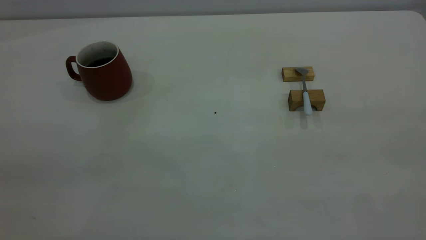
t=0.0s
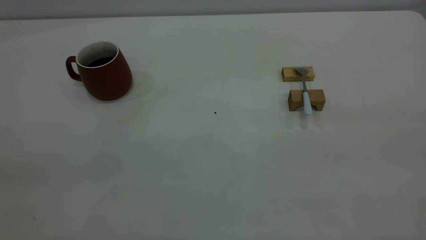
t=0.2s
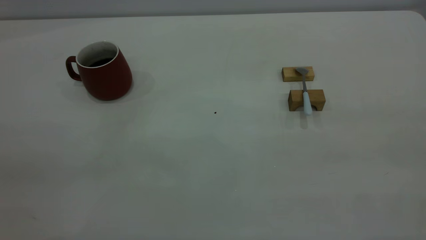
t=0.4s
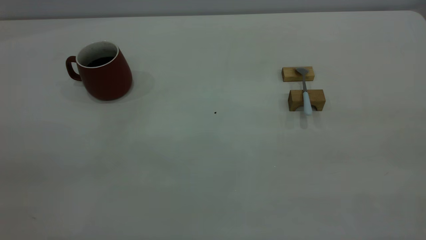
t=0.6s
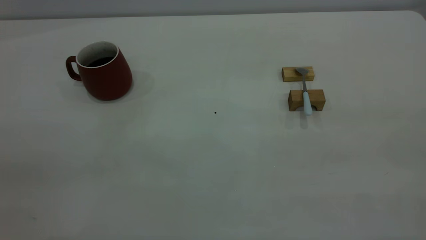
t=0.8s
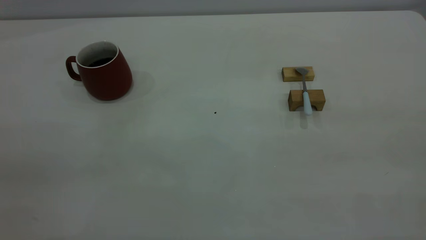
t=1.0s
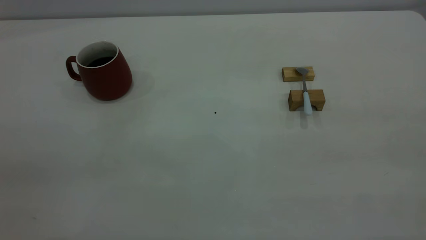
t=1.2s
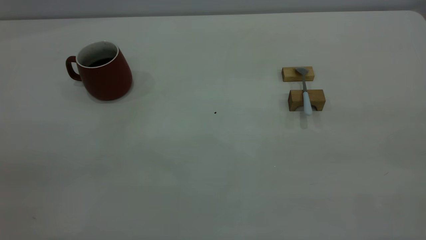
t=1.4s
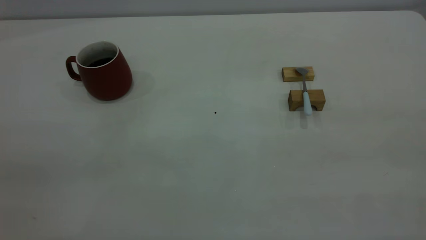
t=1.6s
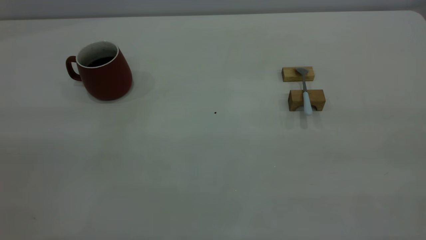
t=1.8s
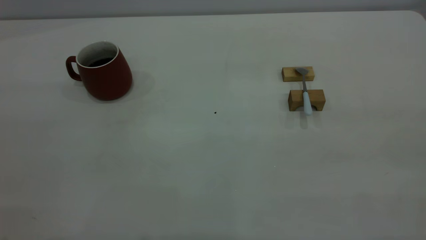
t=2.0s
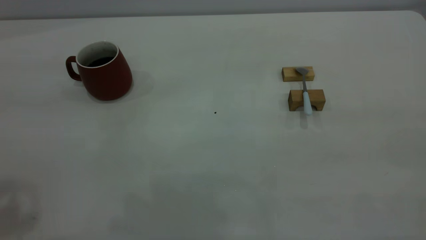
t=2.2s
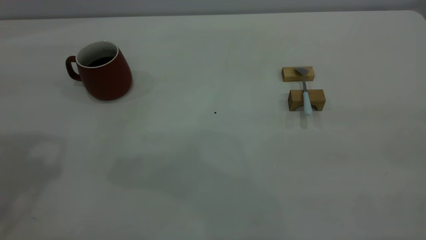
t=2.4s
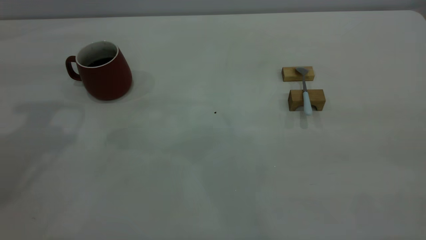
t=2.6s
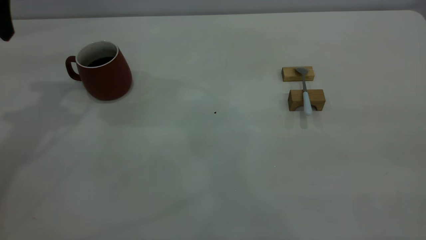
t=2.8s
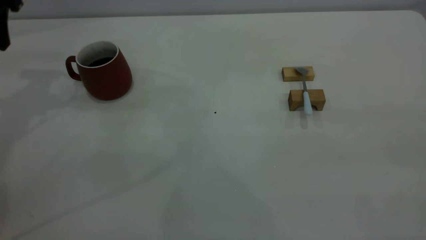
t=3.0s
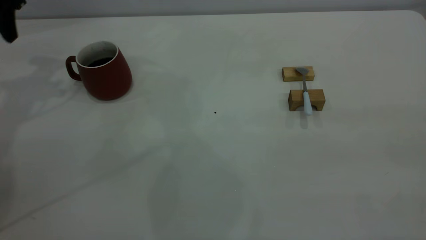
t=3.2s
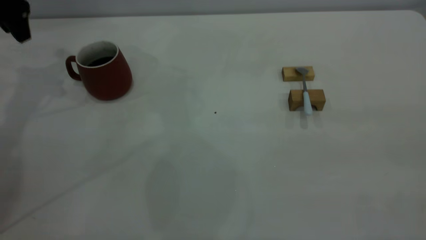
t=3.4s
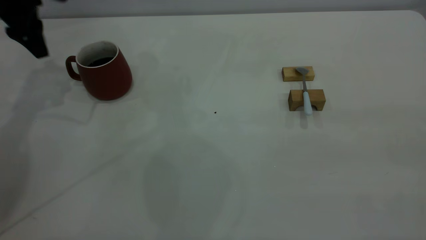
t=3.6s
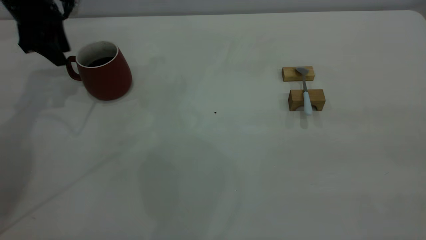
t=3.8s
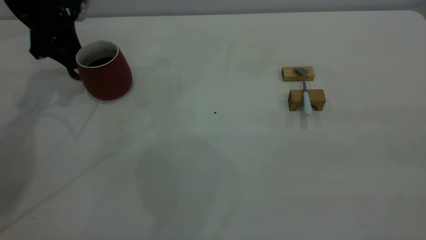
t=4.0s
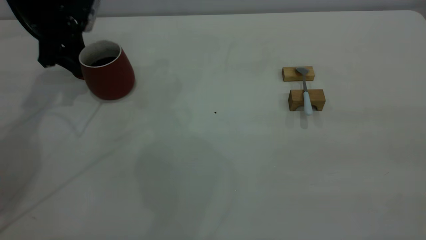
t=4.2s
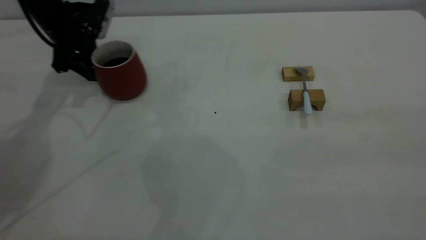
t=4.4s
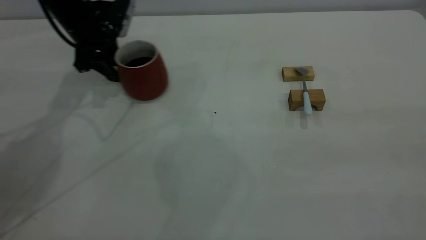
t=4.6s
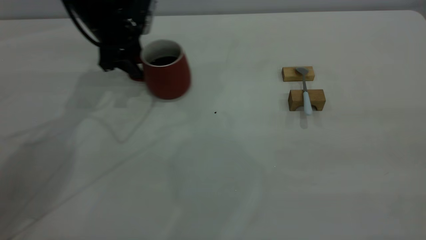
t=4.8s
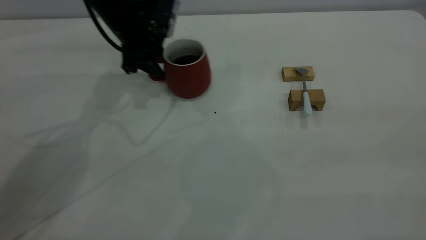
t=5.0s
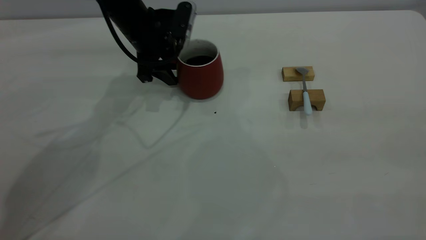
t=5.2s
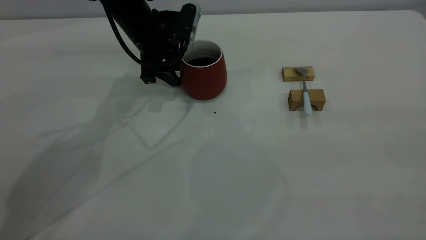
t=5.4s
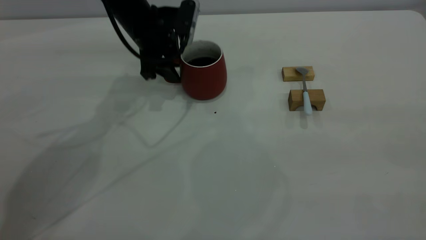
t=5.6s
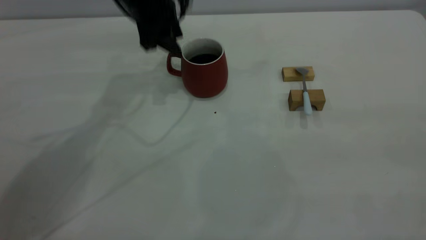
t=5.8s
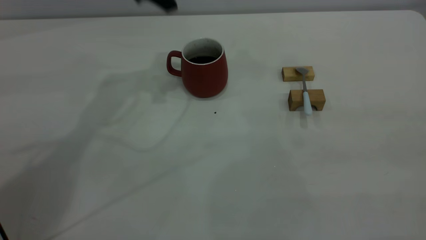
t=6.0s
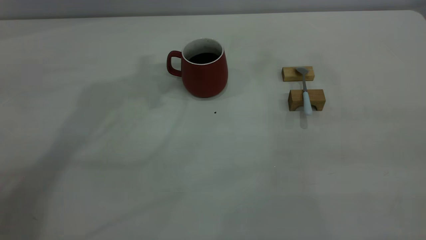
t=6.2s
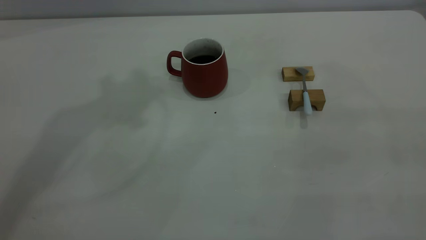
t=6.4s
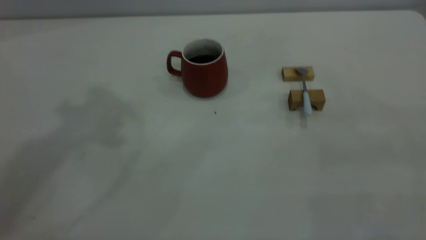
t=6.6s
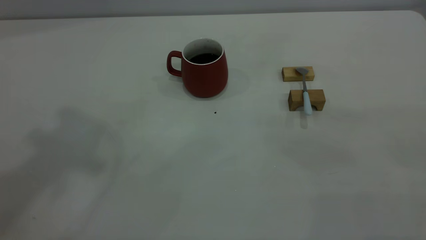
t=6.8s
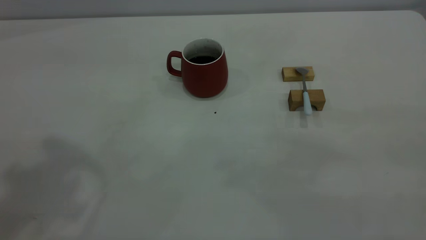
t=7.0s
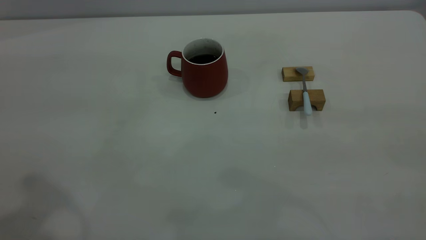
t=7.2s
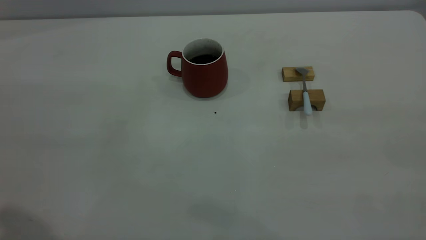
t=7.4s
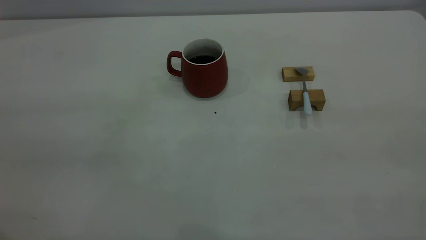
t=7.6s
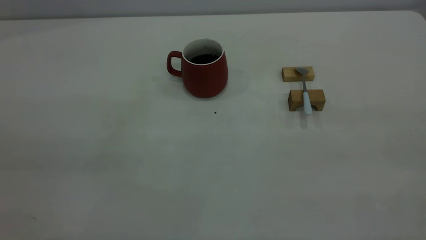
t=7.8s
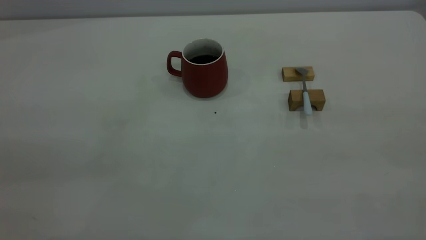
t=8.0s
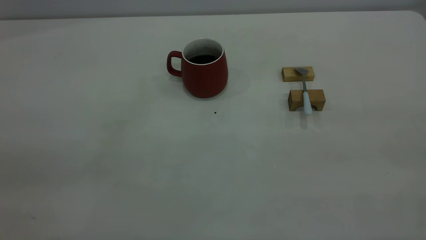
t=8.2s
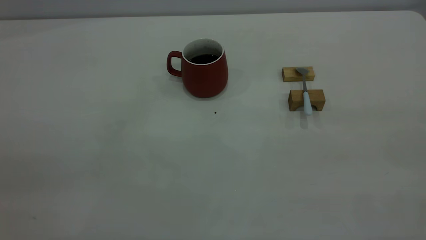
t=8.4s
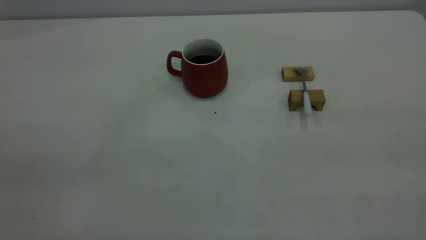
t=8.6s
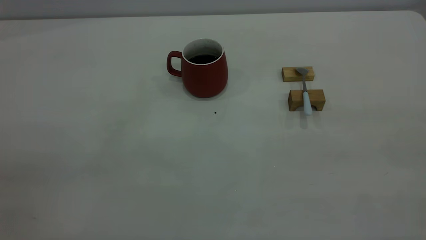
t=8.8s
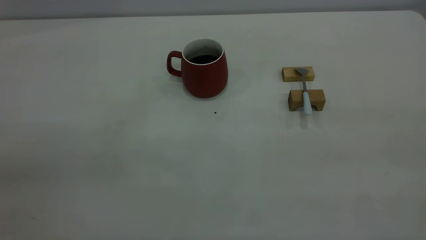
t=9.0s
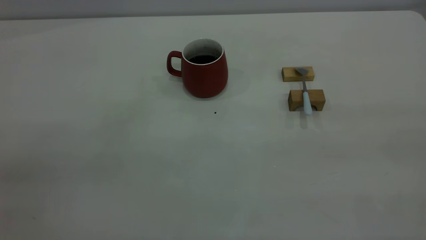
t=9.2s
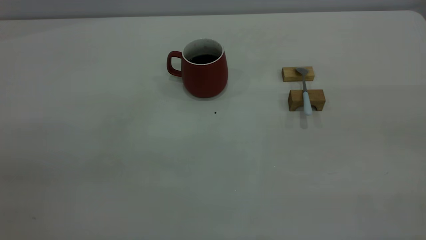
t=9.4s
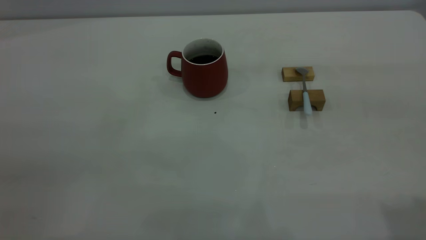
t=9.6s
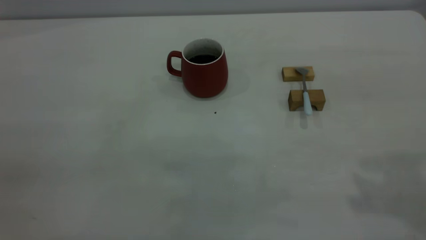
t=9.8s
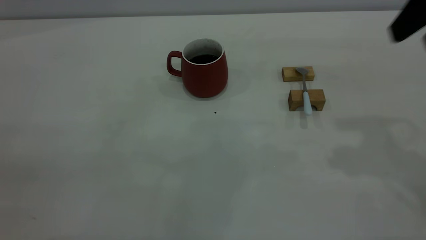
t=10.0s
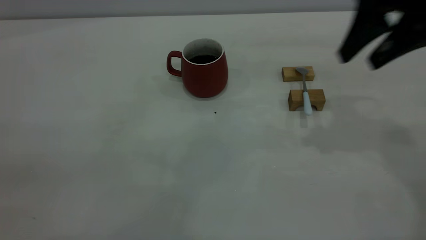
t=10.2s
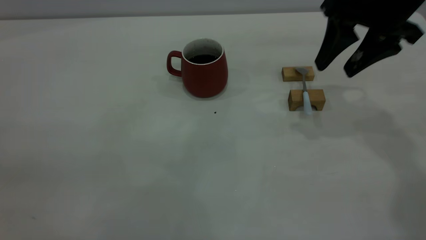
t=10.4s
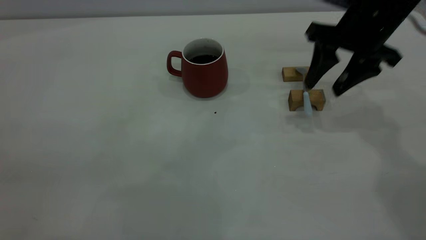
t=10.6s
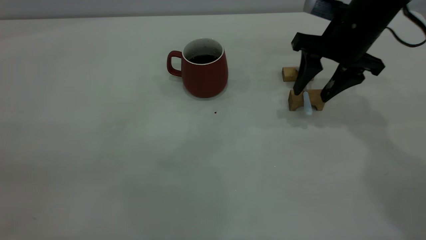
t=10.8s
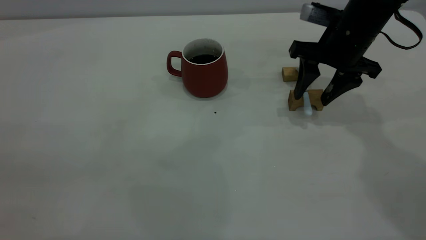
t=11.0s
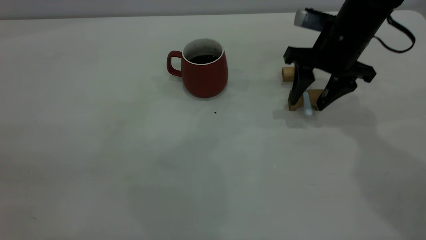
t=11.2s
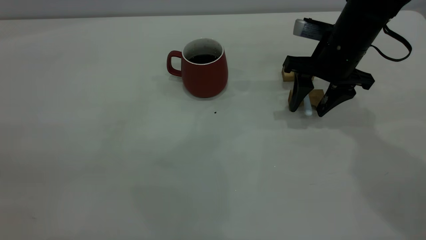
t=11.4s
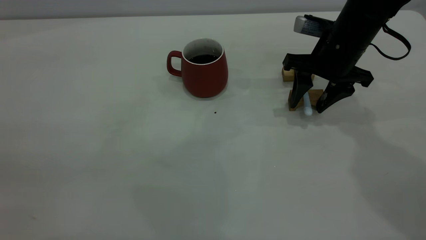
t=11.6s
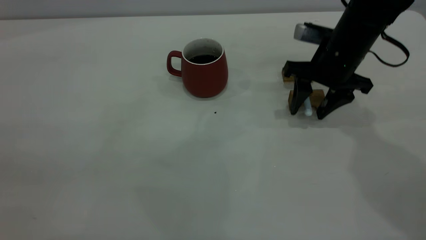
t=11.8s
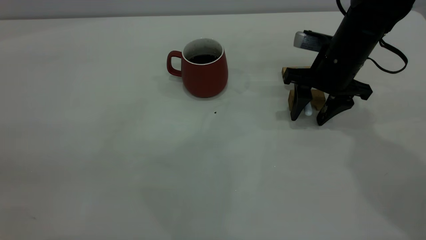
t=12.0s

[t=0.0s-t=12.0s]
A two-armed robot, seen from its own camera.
Step, t=0.0s to t=5.6s: Move the cup with coffee to the center of view.
t=0.0s to t=1.6s: Both grippers stay put.
t=3.0s to t=4.4s: The left gripper shifts some 15 cm downward, to the right and forward.
t=4.4s to t=6.0s: The left gripper shifts approximately 20 cm upward and to the right.
t=6.0s to t=7.6s: The left gripper shifts some 40 cm backward.
t=9.0s to t=10.4s: The right gripper goes some 40 cm forward and downward, and opens.
t=10.4s to t=12.0s: The right gripper goes approximately 10 cm downward.

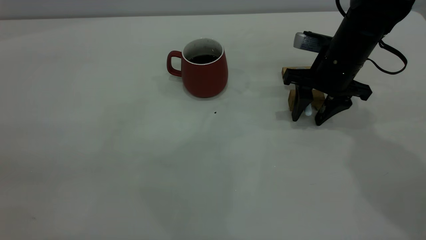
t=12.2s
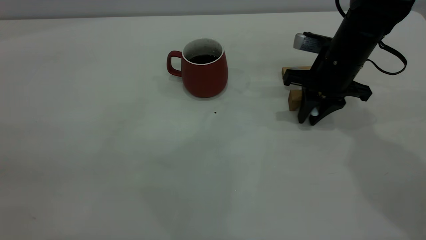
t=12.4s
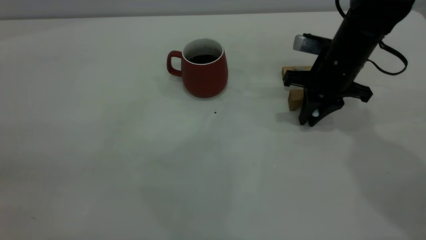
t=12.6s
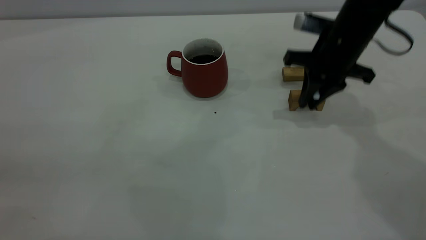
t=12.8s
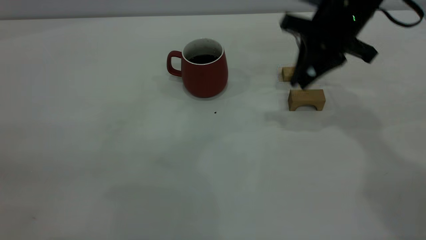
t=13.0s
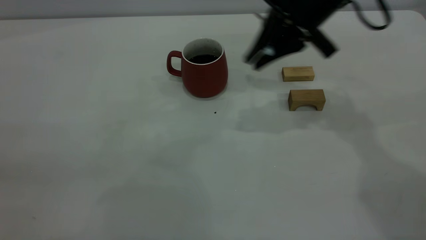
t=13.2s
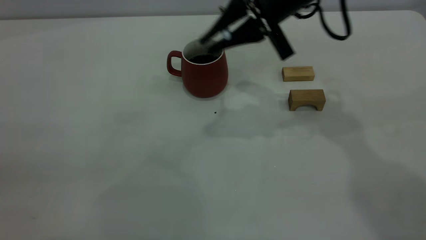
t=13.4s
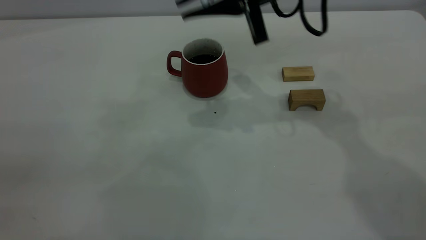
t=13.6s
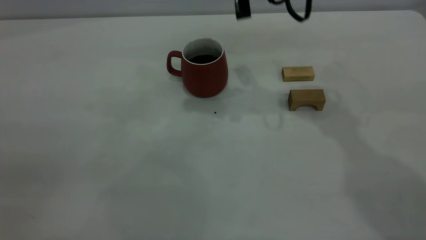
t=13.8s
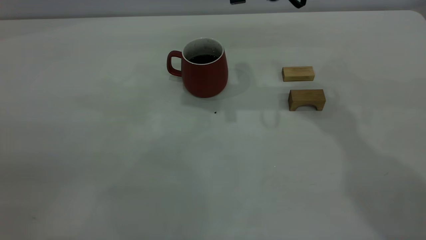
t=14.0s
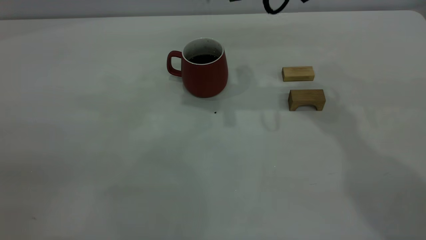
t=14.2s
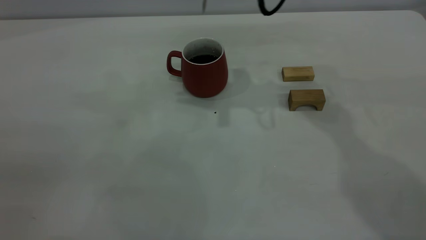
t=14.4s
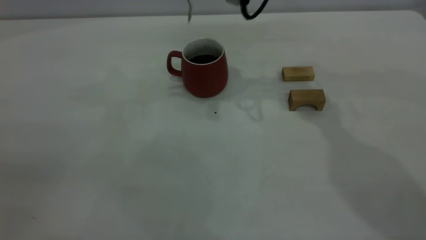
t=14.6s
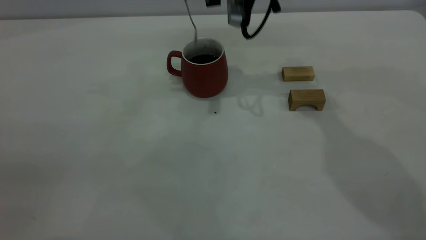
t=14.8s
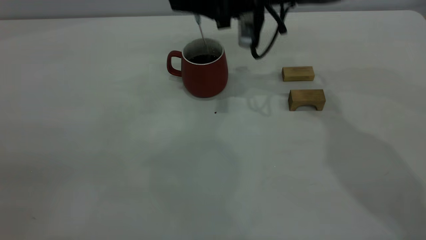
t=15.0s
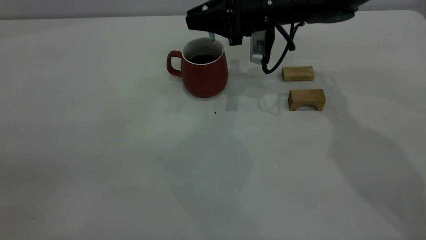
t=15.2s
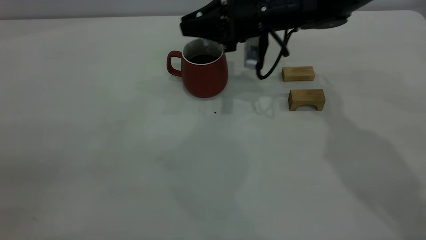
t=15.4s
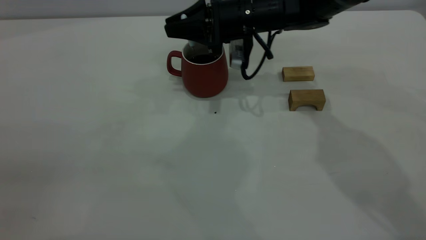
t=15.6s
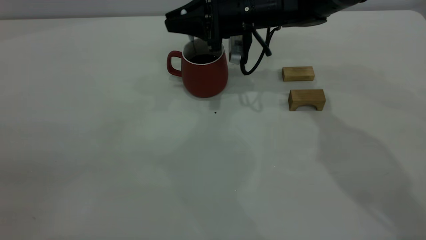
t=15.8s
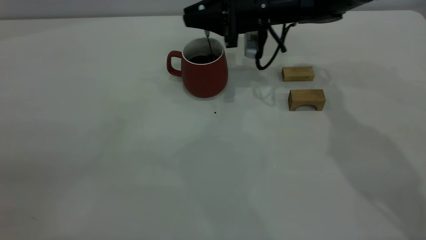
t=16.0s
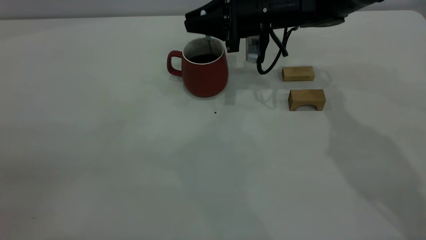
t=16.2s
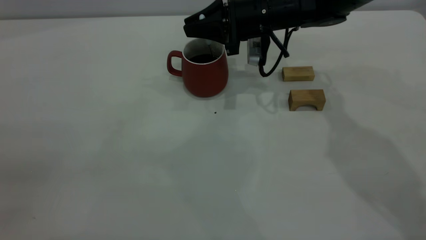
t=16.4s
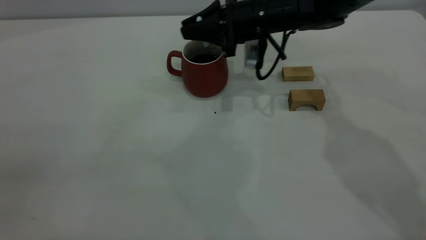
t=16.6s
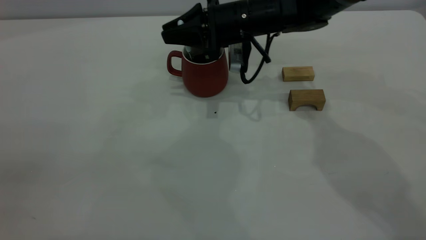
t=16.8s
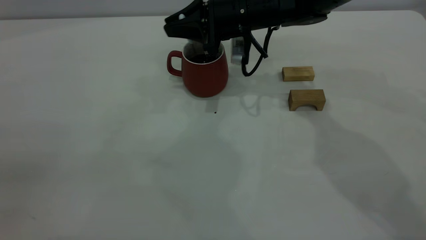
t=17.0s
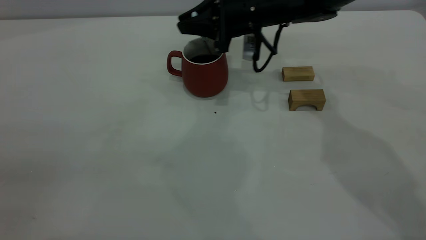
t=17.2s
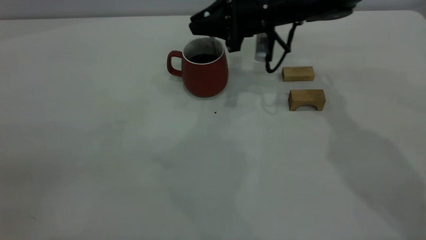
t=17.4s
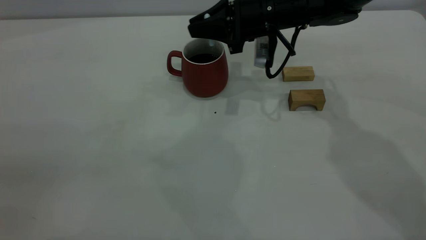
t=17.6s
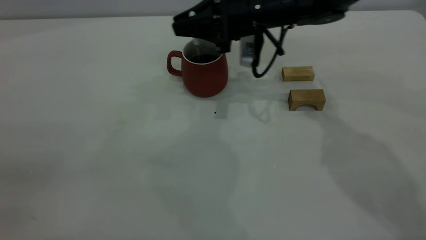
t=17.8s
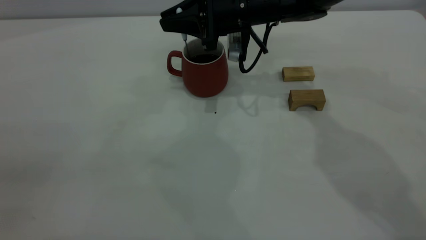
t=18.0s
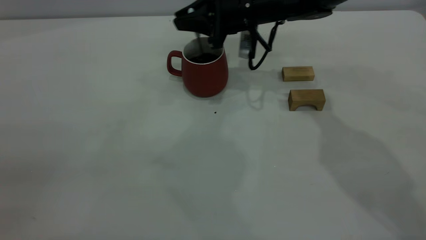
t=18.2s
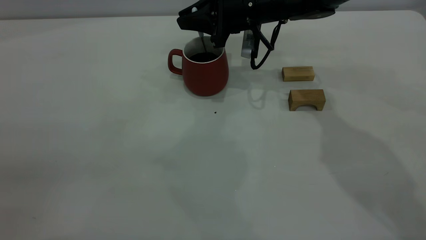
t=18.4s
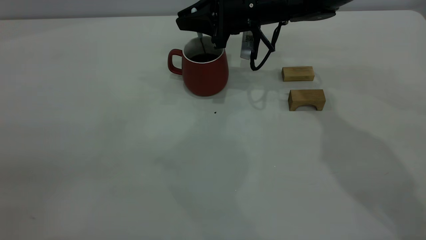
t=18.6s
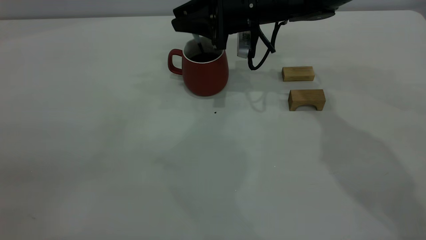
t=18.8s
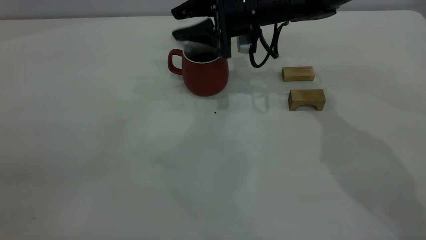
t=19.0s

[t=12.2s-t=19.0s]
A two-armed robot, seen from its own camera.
t=12.2s to t=13.6s: The right gripper goes about 15 cm upward and to the left, and closes its fingers.
t=13.6s to t=15.0s: The right gripper heads downward and forward, covering some 10 cm.
t=15.0s to t=17.6s: There are only small adjustments of the grippers.
t=17.6s to t=19.0s: The right gripper opens.
